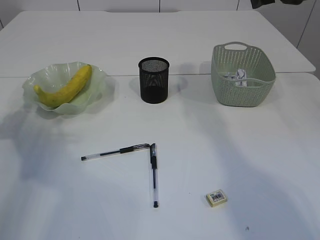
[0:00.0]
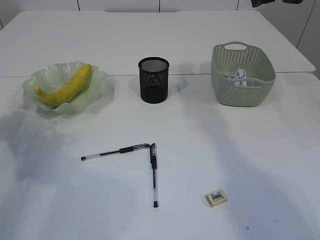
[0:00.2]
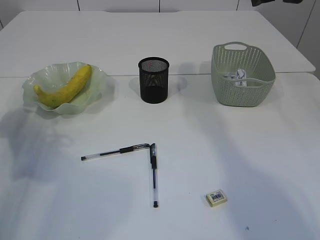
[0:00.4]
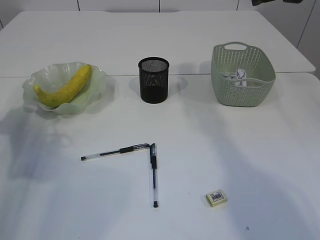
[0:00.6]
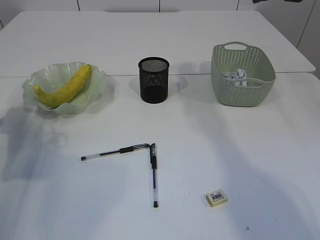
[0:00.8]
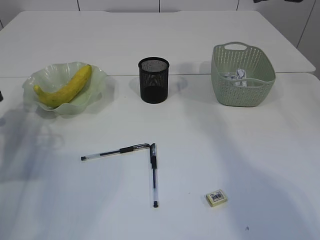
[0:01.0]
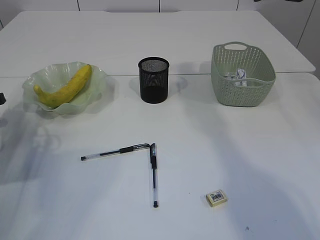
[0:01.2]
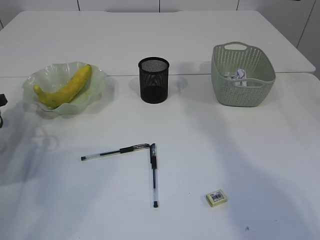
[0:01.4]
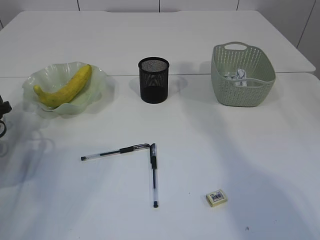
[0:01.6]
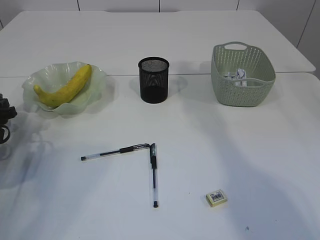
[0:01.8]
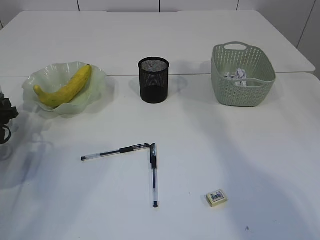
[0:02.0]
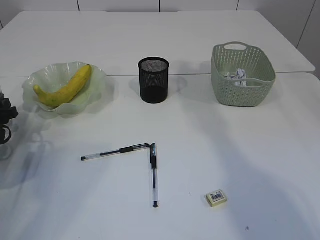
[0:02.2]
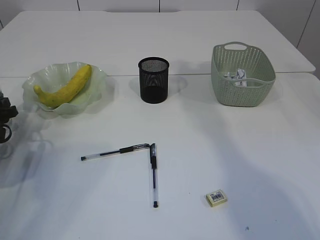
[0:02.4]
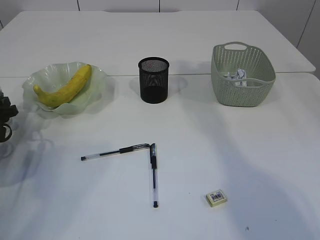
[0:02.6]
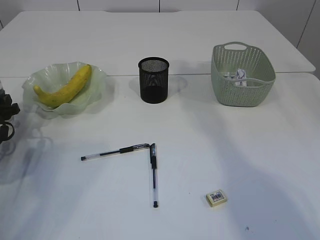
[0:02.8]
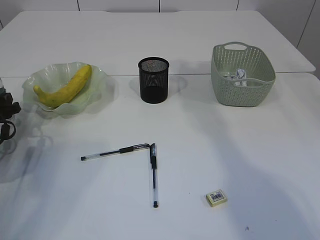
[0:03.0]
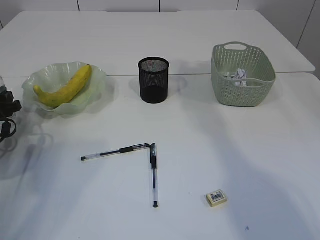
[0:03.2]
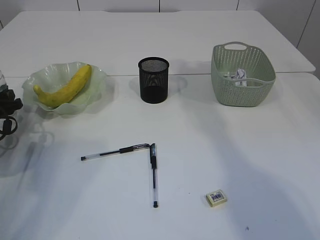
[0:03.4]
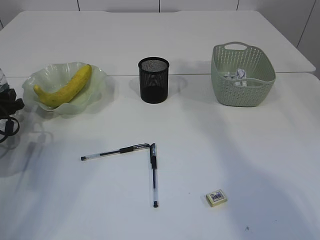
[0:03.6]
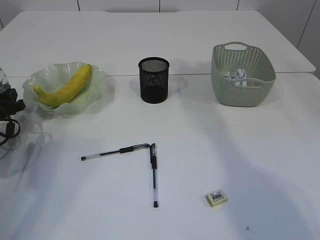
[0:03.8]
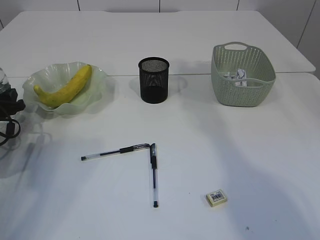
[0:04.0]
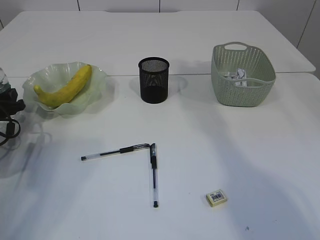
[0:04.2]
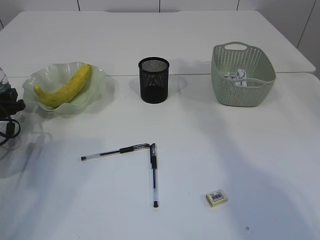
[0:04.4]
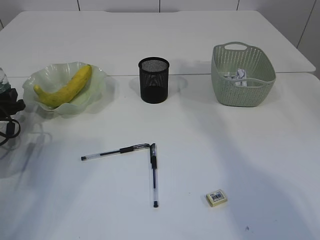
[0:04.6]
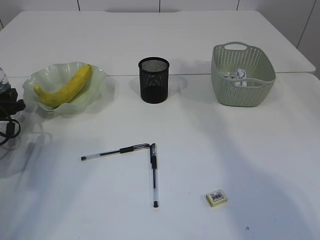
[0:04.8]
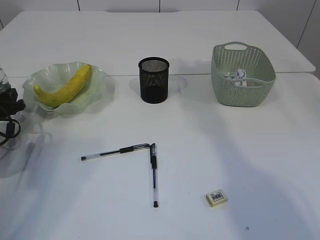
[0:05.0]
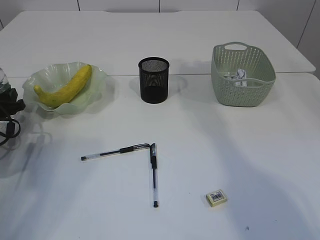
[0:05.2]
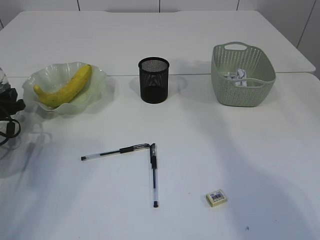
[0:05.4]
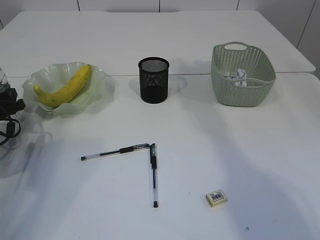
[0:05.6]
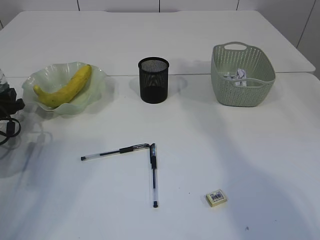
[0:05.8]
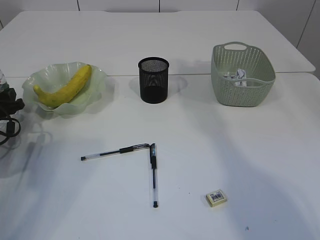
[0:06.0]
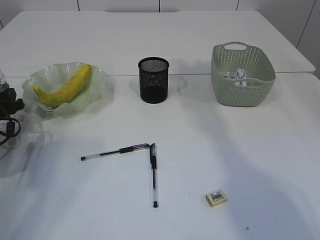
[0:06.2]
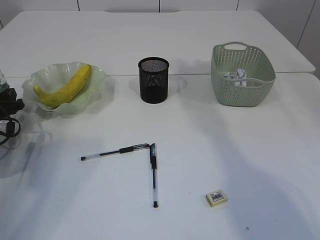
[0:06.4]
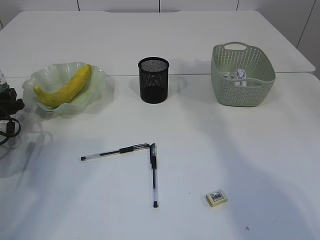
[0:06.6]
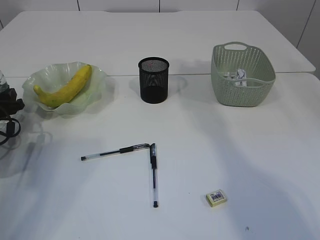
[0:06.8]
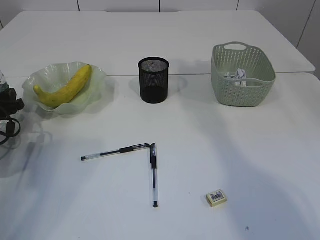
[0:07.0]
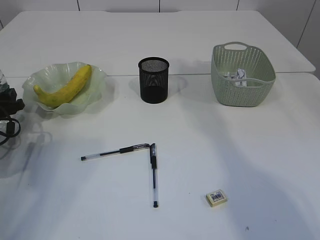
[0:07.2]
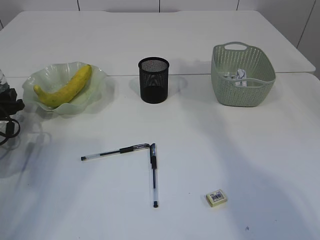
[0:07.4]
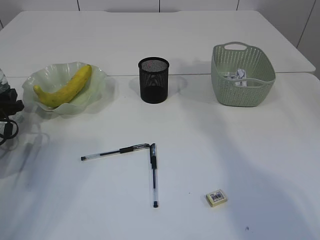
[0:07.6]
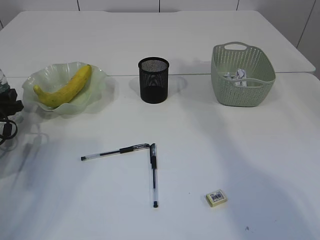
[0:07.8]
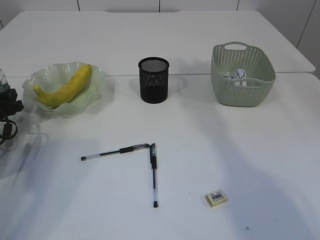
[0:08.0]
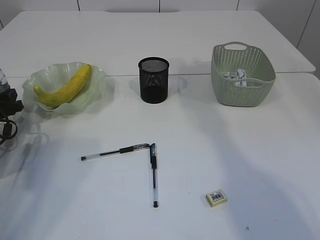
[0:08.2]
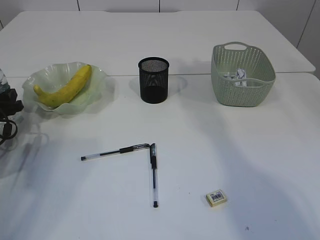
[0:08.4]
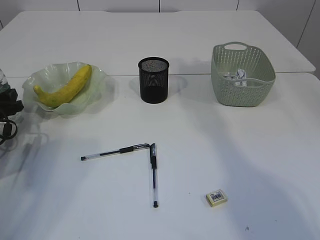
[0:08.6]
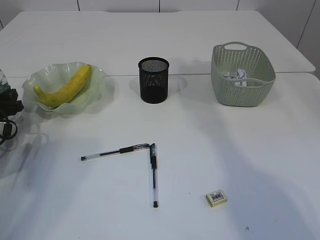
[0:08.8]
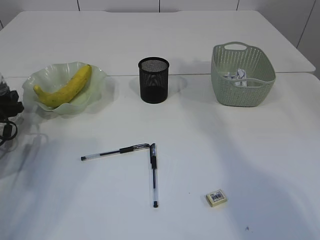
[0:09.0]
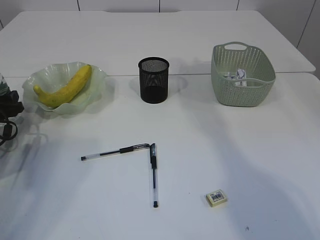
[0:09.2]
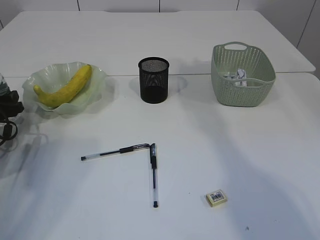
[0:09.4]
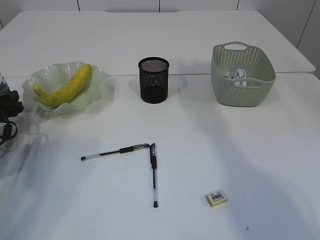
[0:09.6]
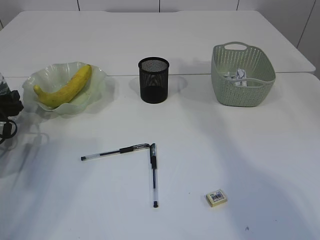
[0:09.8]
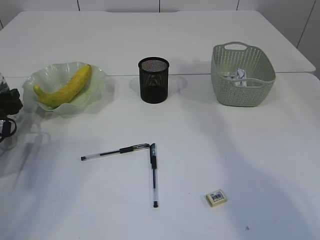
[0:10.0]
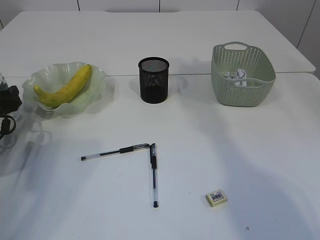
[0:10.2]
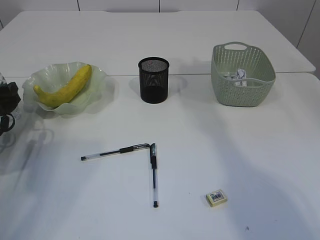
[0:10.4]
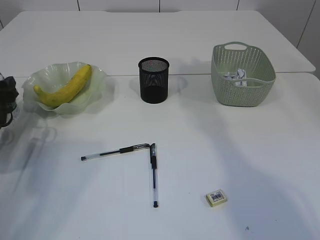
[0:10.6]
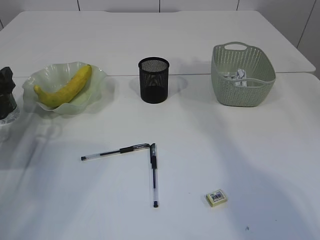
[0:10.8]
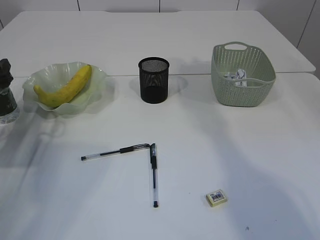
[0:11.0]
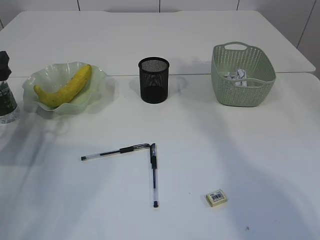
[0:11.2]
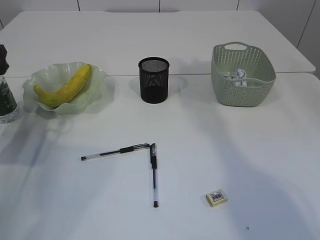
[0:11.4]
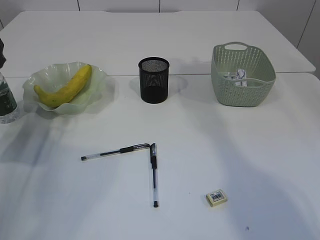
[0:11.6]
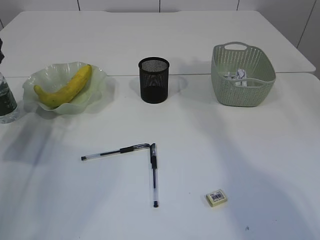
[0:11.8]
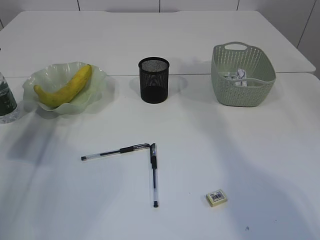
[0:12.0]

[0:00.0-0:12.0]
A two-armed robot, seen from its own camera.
0:00.0 to 0:01.6: The left gripper goes roughly 10 cm downward.
0:01.6 to 0:03.0: The grippers stay close to where they were, moving slightly.
0:04.4 to 0:09.0: Neither gripper changes place.
0:10.4 to 0:12.0: The left gripper travels upward by about 10 cm.

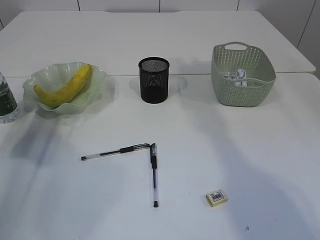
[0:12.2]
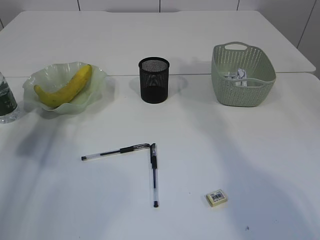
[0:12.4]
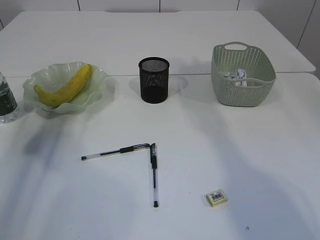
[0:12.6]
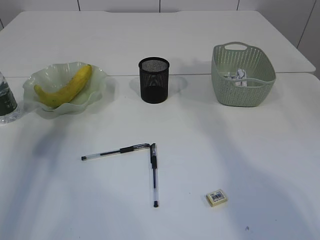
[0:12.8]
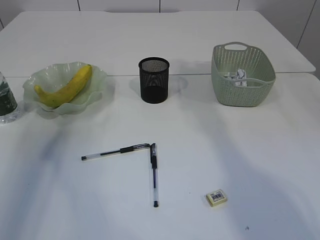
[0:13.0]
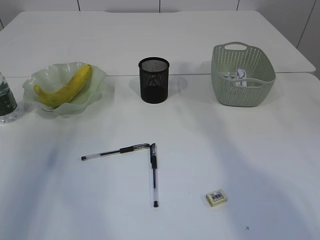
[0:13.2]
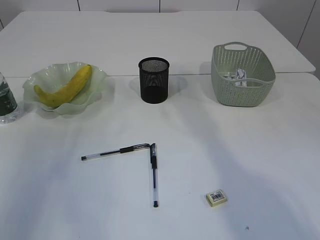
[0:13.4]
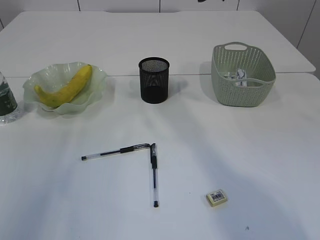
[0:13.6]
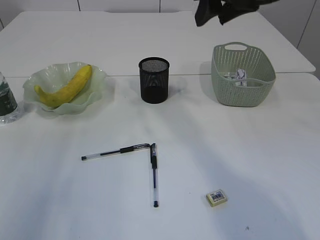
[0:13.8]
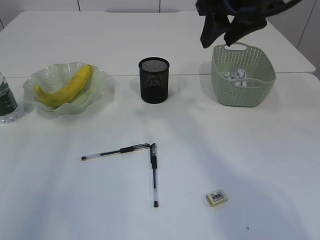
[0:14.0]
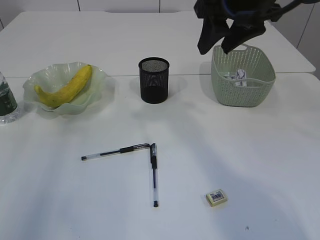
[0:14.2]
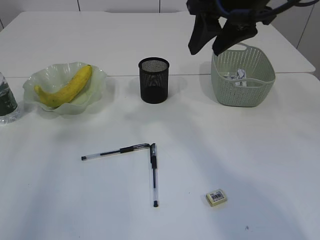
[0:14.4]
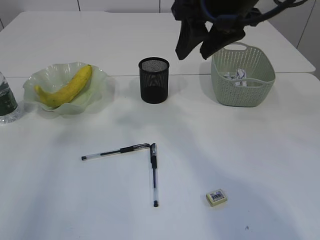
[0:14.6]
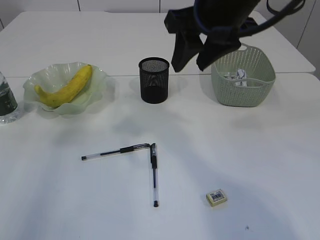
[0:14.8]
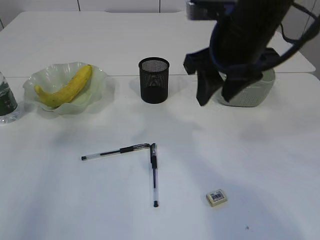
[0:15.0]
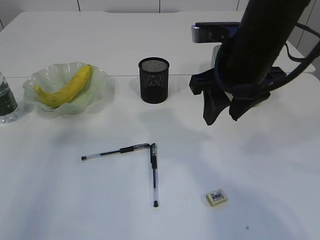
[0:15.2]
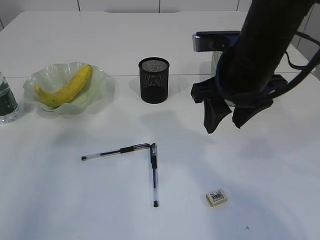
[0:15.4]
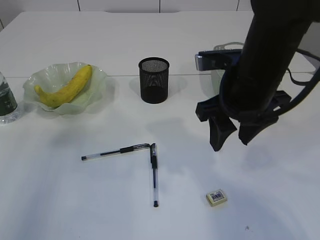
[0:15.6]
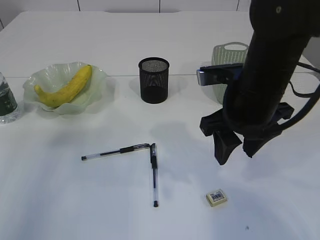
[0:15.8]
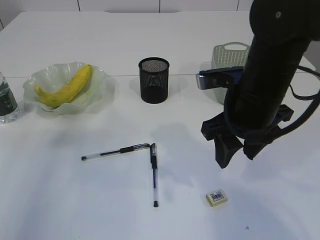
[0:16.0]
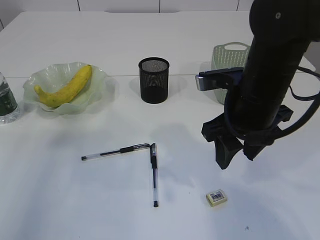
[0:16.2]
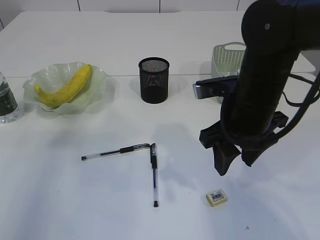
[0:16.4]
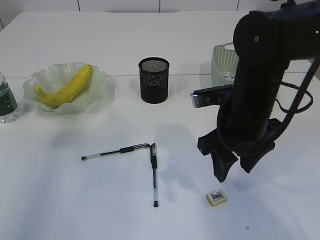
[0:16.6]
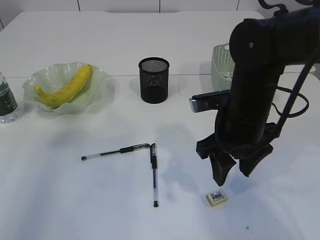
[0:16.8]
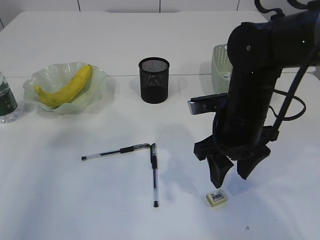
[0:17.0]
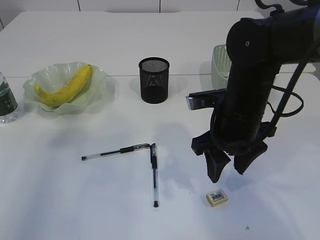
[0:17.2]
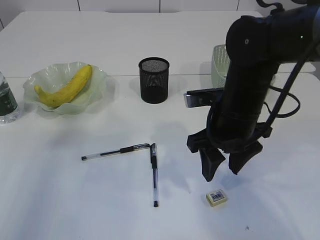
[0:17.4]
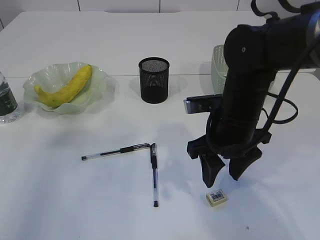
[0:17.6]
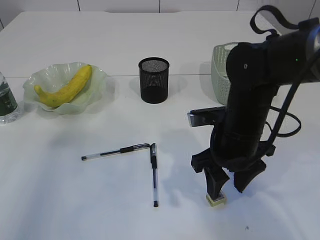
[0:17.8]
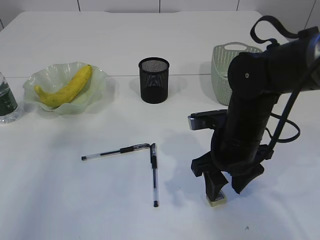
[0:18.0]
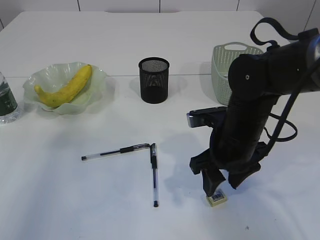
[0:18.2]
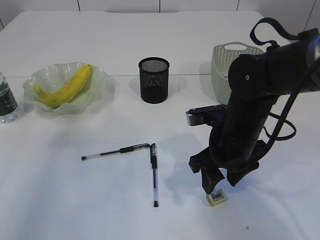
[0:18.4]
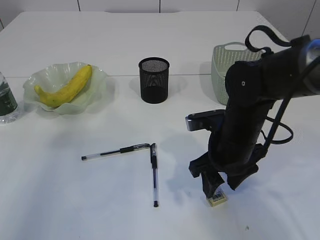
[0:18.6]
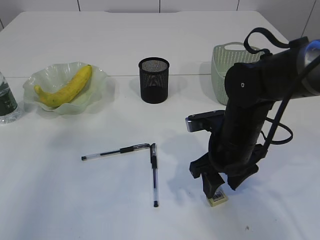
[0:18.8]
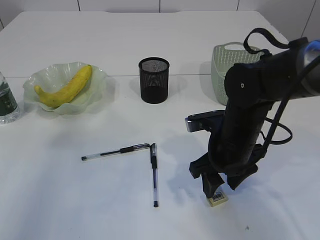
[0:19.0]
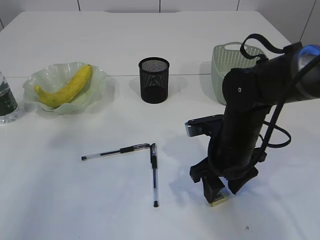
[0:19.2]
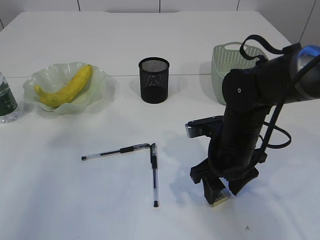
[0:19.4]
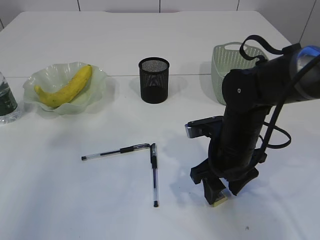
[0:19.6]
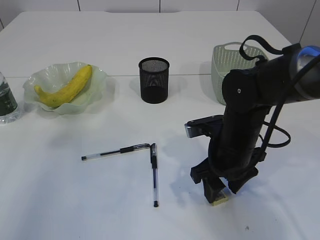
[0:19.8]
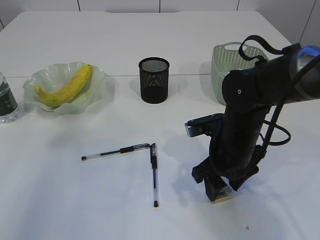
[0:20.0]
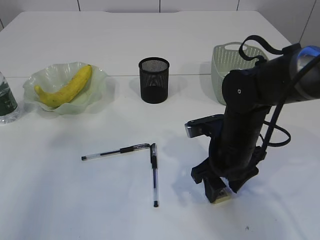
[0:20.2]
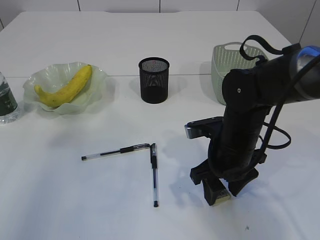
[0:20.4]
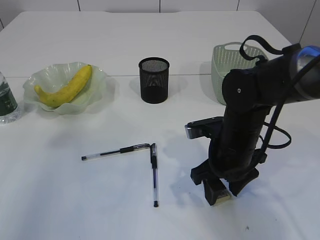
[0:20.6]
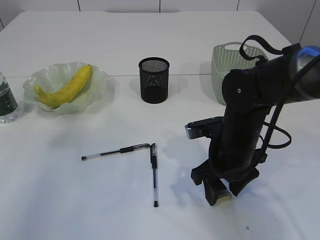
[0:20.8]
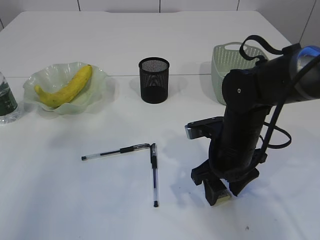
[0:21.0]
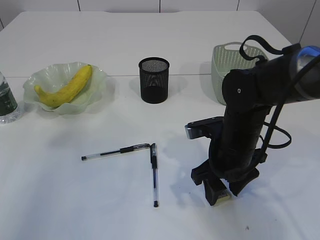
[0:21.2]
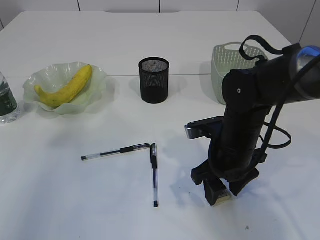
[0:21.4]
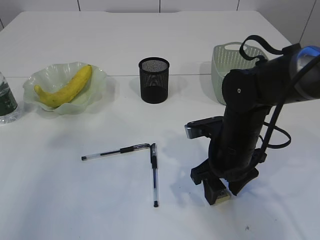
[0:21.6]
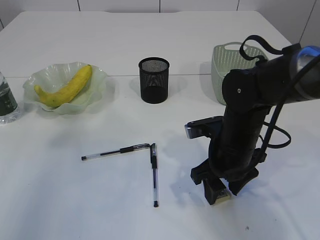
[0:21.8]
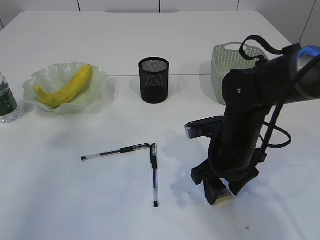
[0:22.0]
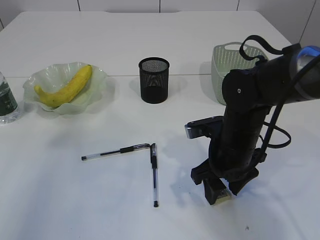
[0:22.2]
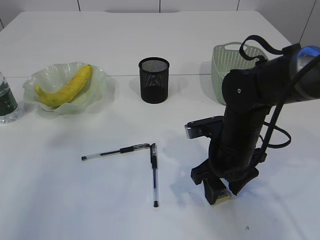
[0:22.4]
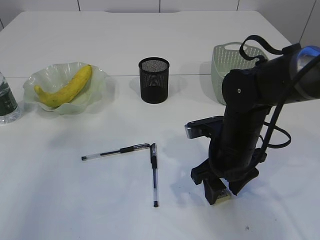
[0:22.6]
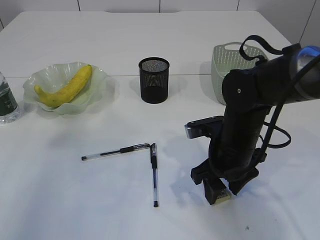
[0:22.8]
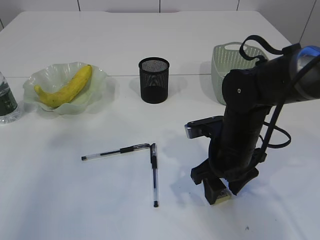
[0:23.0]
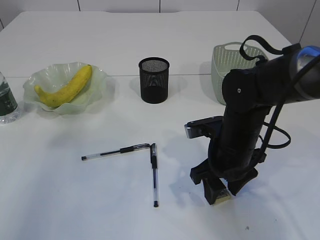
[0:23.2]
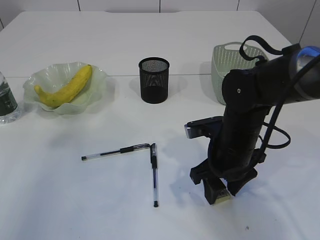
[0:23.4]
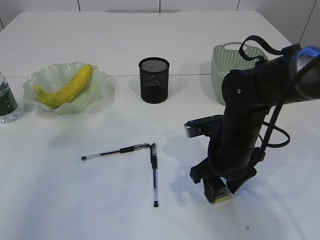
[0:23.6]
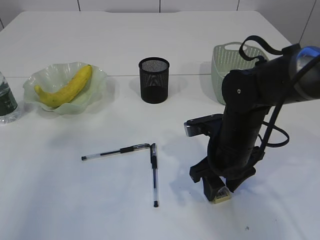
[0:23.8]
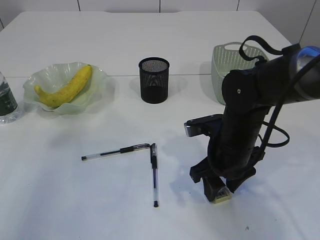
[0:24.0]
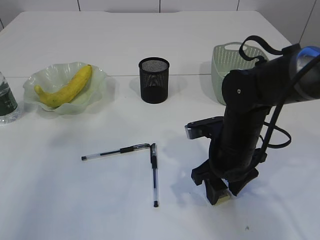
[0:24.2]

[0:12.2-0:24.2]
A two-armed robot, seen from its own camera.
0:12.2 to 0:13.8: The left gripper is displaced upward and backward by roughly 30 cm. Meanwhile the right gripper goes approximately 10 cm to the left and backward.
0:13.8 to 0:15.2: The left gripper heads backward, covering roughly 5 cm, while the right gripper heads downward and backward, covering approximately 10 cm.
0:15.2 to 0:16.6: The right gripper travels downward by about 10 cm.
0:16.6 to 0:18.2: The right gripper travels downward by some 5 cm.
0:18.2 to 0:19.8: The grippers stay close to where they were, moving slightly.
0:19.8 to 0:24.2: Both grippers stay about where they are.
